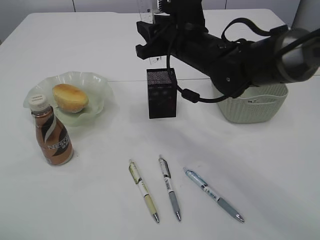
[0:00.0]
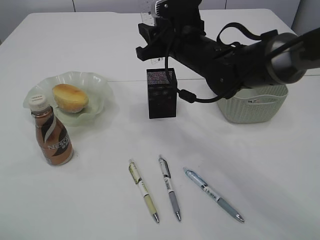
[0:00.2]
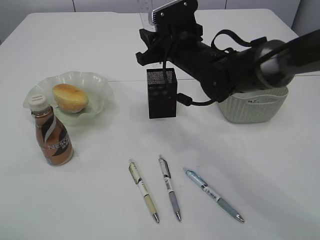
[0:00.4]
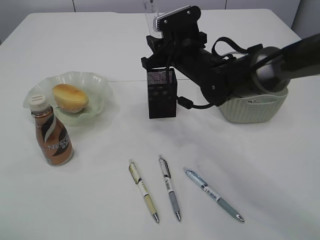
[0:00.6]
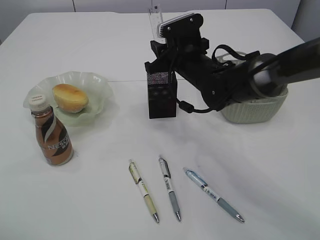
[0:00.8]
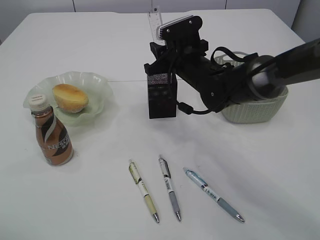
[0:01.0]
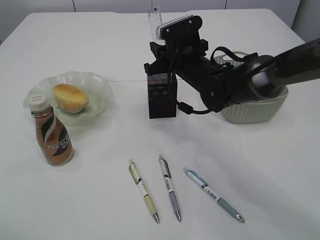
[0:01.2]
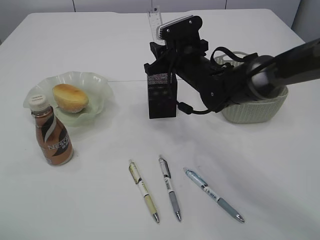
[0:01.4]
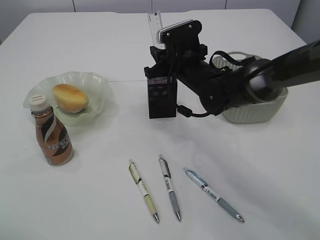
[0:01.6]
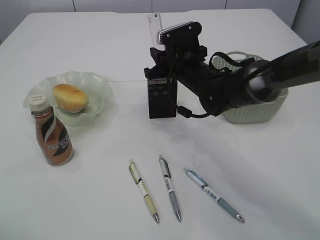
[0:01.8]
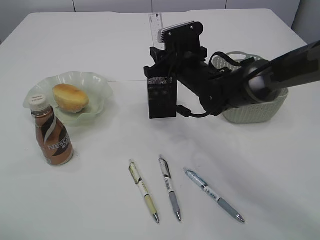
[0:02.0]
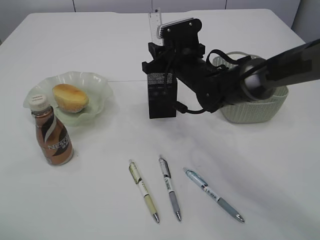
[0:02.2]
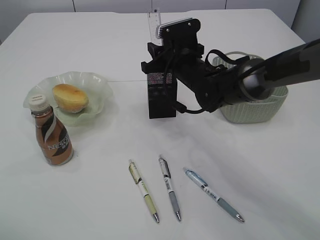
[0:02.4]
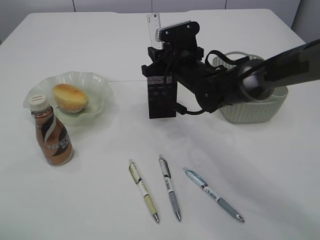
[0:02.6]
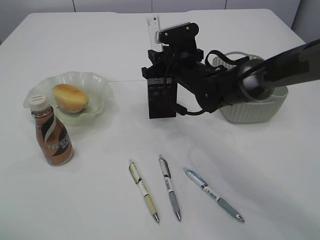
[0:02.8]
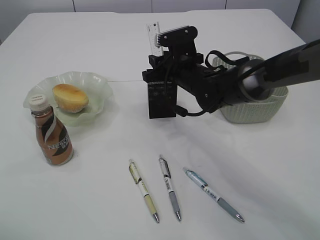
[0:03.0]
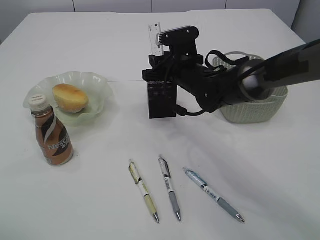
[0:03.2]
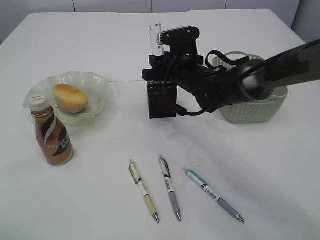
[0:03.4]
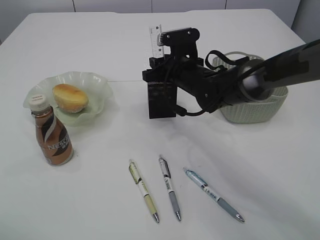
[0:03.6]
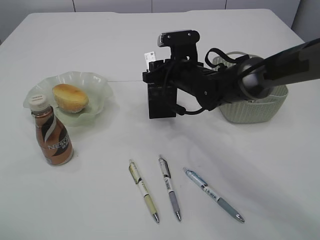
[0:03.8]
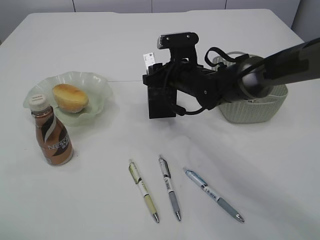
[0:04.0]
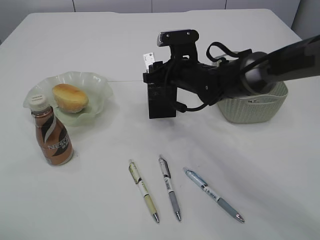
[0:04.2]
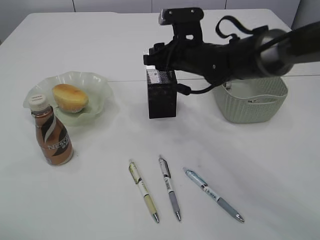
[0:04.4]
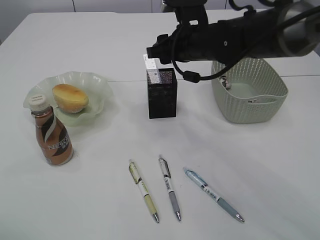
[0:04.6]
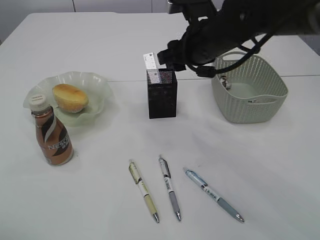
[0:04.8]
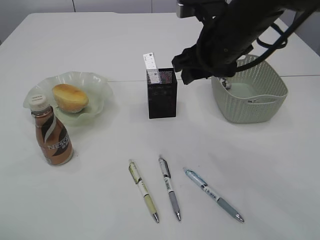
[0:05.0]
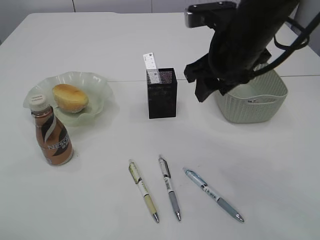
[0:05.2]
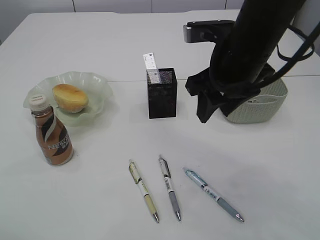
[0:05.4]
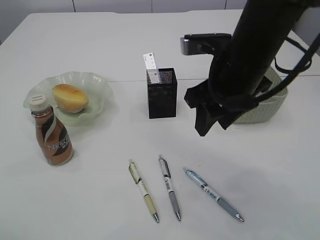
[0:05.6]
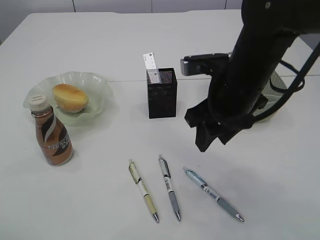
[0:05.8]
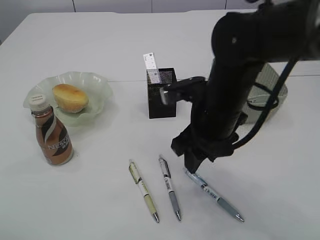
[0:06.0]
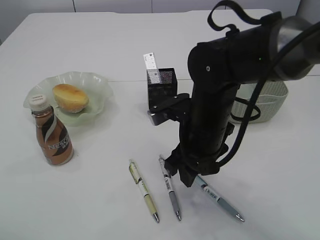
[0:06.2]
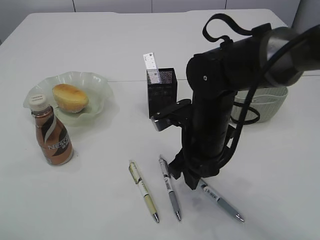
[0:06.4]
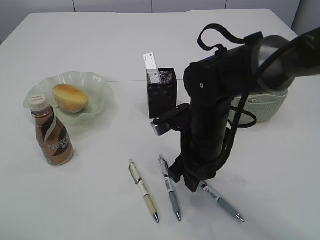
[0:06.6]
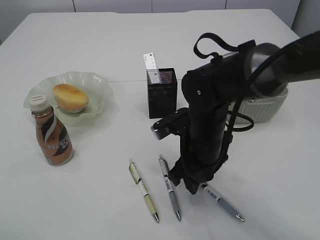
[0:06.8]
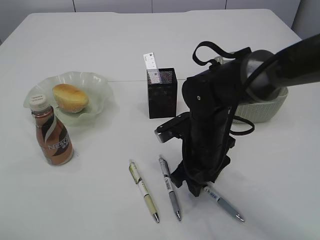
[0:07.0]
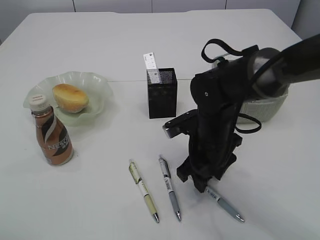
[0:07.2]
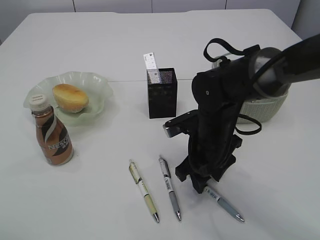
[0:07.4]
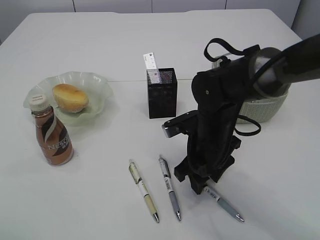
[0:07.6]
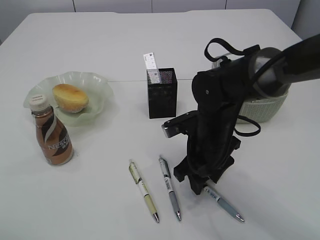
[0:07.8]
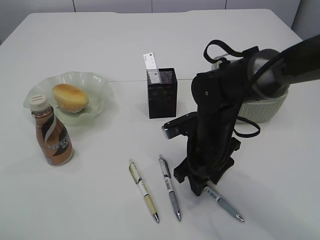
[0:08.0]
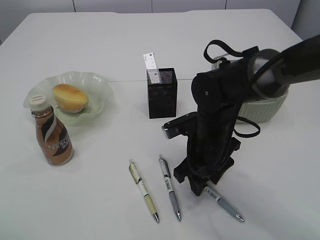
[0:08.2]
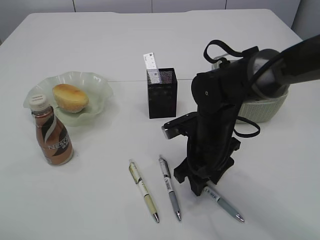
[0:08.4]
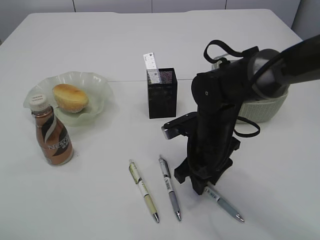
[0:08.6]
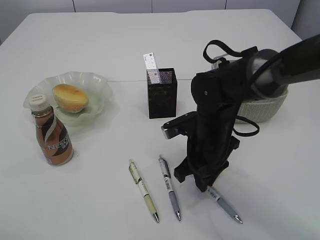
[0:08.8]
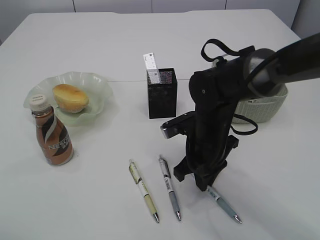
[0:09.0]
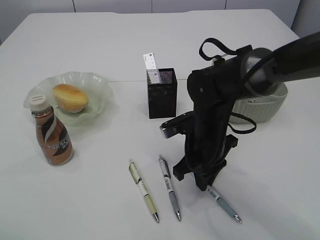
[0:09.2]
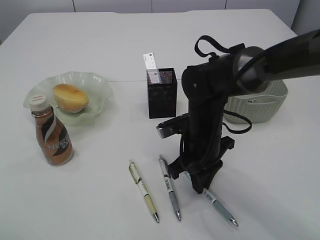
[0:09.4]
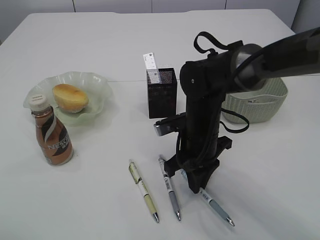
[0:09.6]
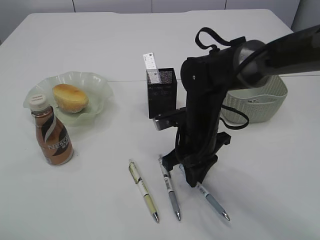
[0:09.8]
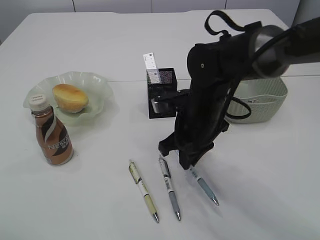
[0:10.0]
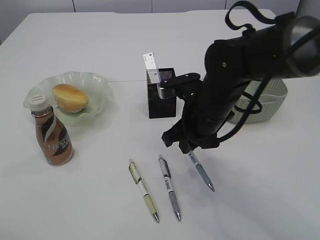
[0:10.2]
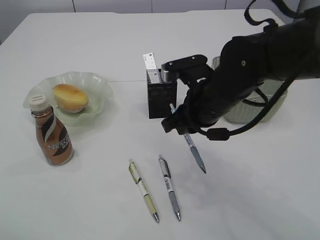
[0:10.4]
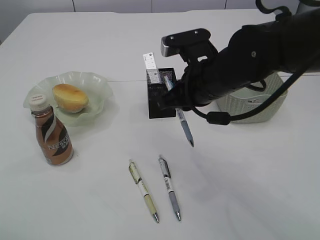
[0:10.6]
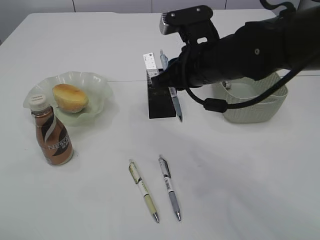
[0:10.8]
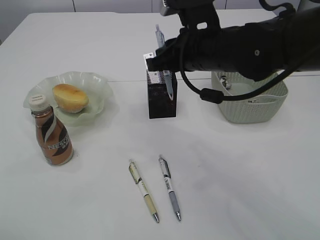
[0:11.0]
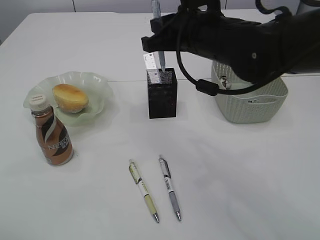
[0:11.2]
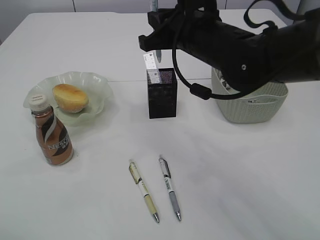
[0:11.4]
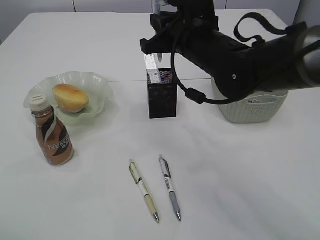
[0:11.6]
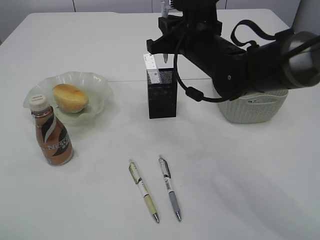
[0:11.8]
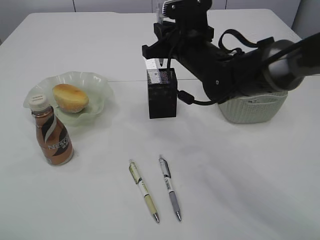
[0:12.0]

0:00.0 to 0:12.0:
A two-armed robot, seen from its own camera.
Step, 0:00.0 to 0:04.8: Place the ruler into the pen holder.
Step, 0:05.0 to 0:10.2: Pick up the pen with right arm.
0:00.0 to 0:01.6: The right gripper is displaced downward by some 5 cm.
0:01.6 to 0:03.0: The grippers stay close to where they were, moving slightly.
0:03.0 to 0:04.4: There are only small adjustments of the grippers.
0:04.4 to 0:06.0: The right gripper shifts roughly 15 cm backward.
0:06.0 to 0:07.6: The right gripper is displaced downward by roughly 10 cm.
0:07.6 to 0:09.0: The right gripper closes.
0:09.0 to 0:10.4: The right gripper is displaced upward by roughly 10 cm.
0:10.4 to 0:12.0: The right gripper travels forward by approximately 10 cm.

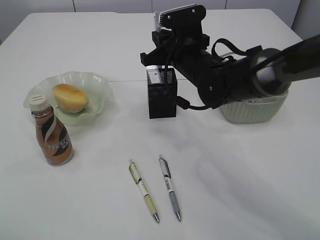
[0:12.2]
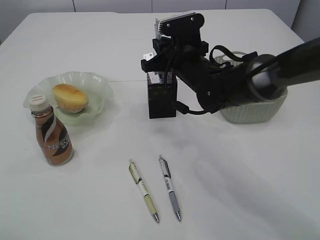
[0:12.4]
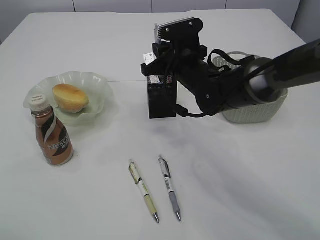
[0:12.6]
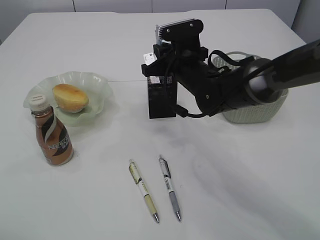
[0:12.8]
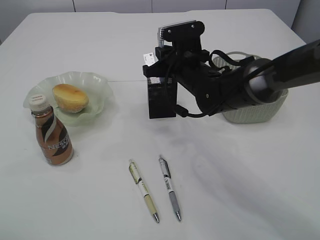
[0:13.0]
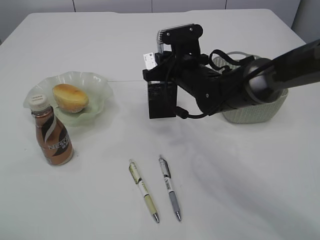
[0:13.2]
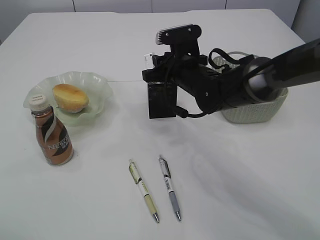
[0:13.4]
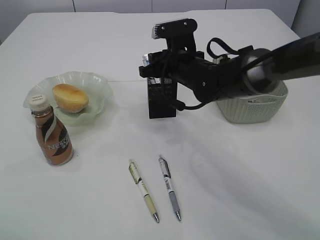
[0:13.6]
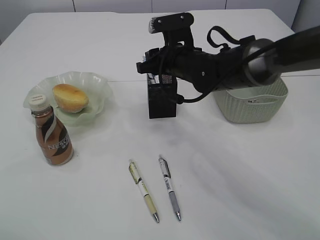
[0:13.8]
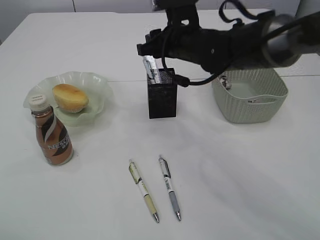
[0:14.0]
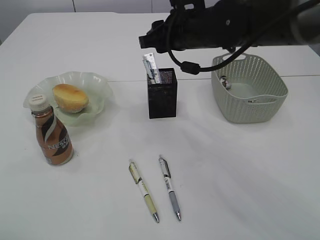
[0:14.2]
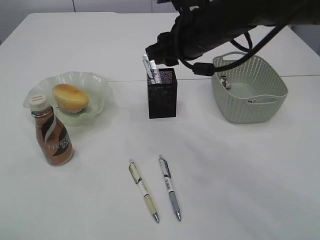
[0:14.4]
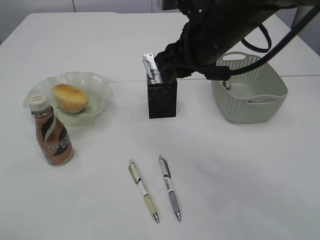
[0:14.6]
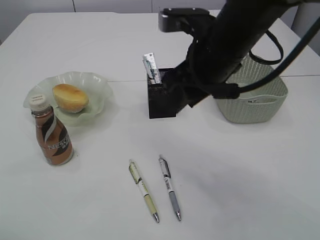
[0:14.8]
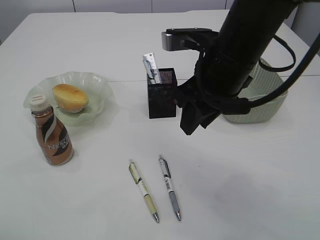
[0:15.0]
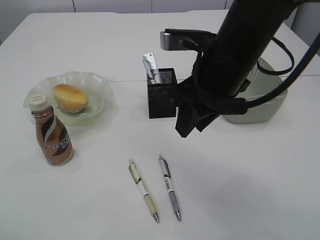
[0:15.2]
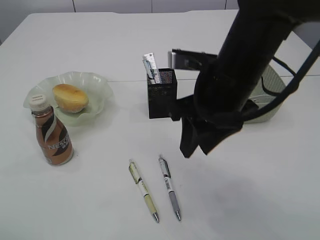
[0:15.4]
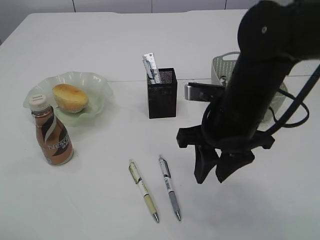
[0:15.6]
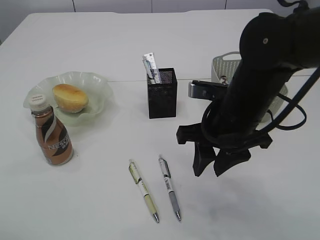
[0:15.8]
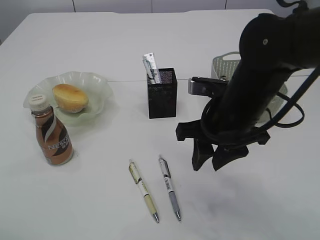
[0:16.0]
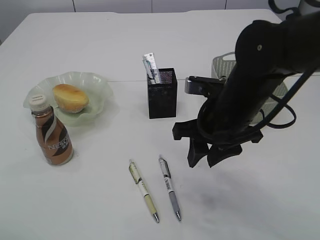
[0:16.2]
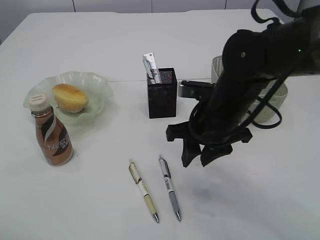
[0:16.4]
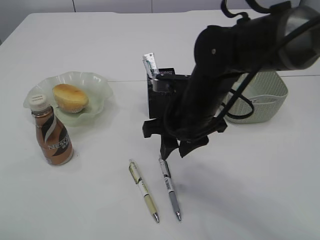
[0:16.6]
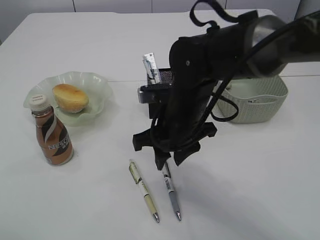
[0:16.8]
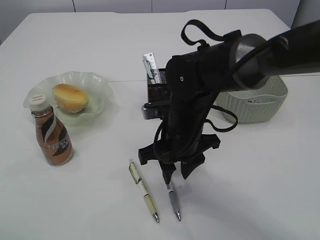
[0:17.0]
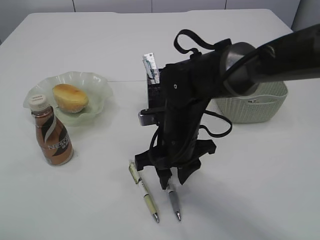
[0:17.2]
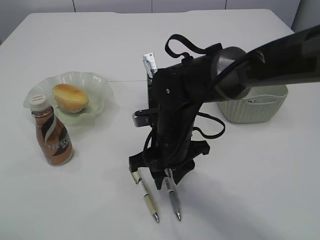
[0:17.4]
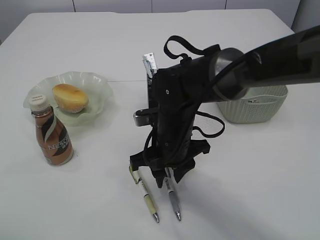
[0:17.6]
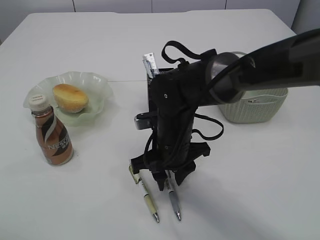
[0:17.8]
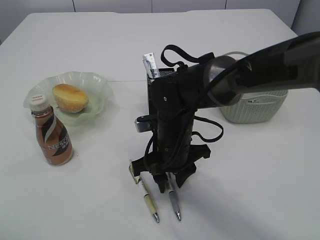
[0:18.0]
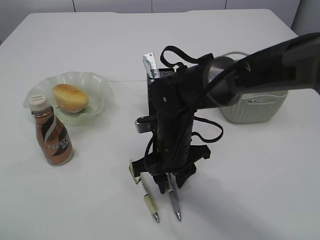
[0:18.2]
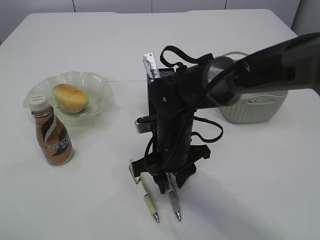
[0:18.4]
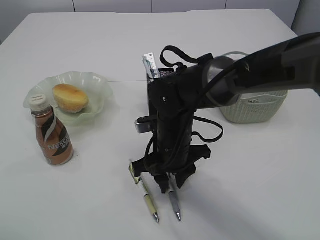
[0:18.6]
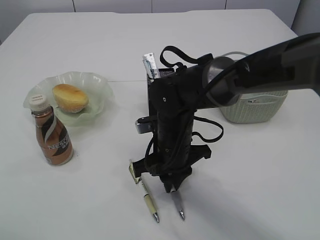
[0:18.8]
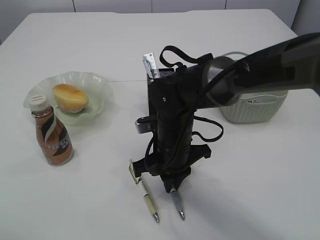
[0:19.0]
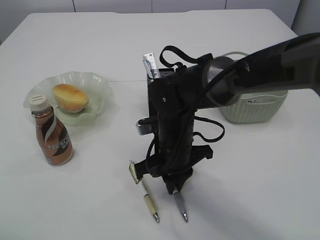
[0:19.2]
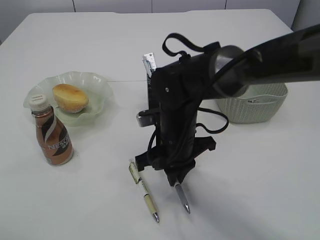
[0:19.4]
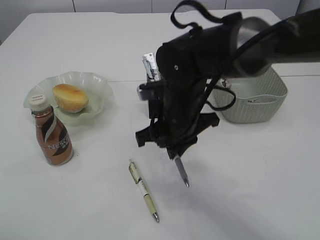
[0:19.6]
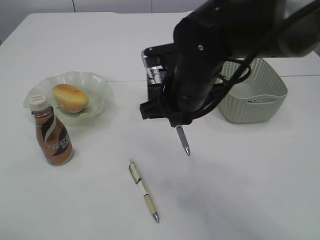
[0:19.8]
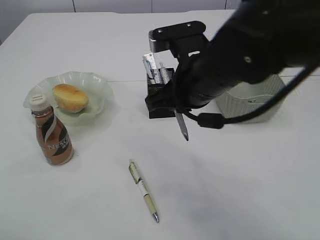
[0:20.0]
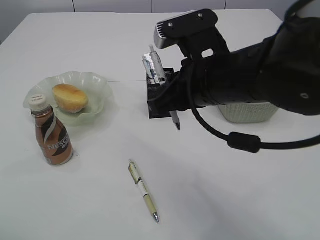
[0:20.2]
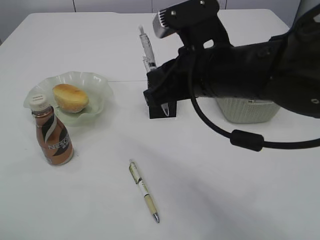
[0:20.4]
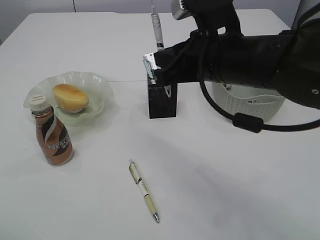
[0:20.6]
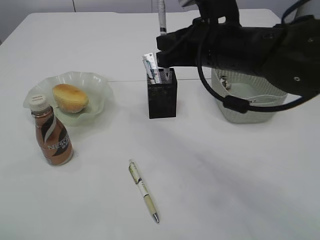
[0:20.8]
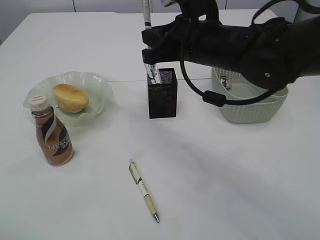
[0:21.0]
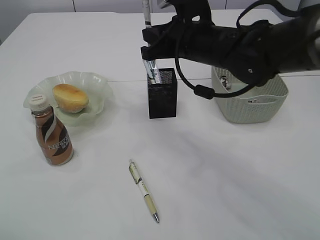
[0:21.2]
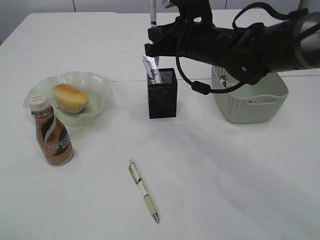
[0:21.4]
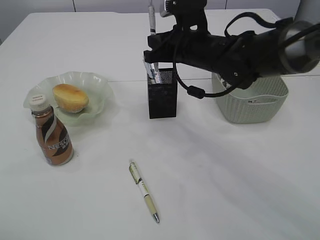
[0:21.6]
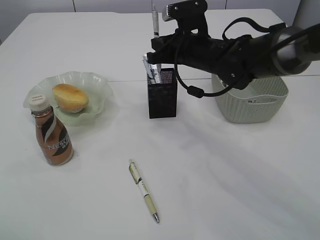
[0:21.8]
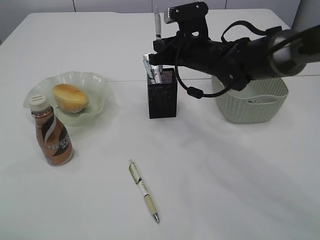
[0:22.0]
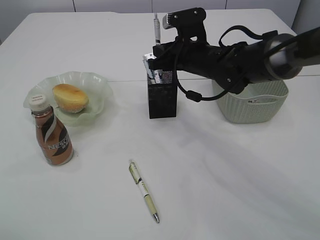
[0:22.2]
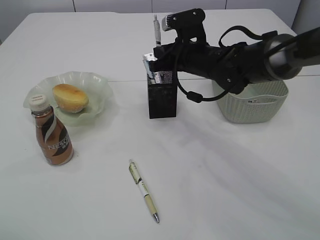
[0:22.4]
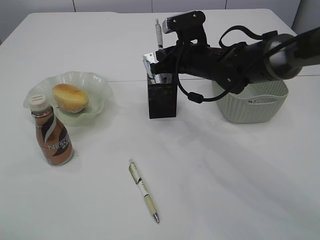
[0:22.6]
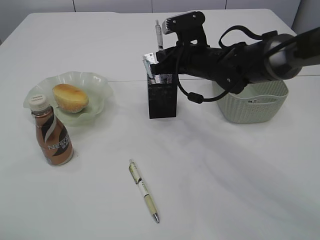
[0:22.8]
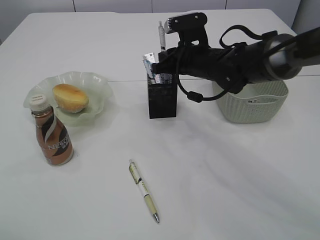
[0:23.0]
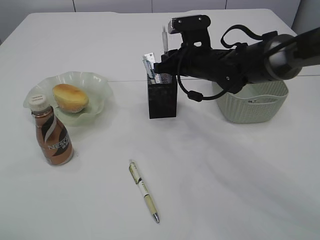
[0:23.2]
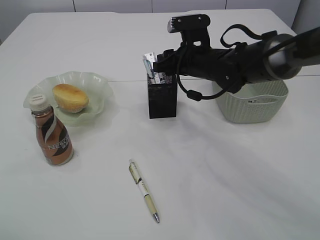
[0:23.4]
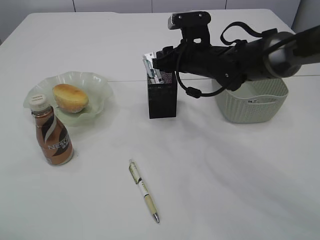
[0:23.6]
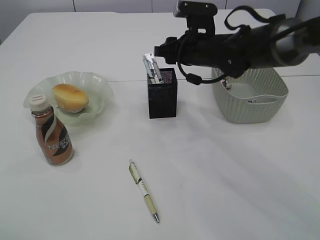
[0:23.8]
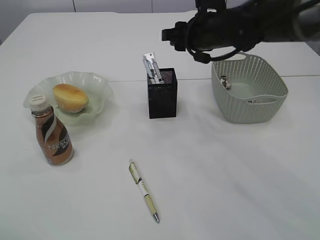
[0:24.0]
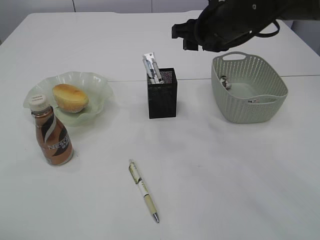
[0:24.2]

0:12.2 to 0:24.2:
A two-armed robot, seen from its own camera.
Step, 0:14.2 to 0:19.6: Pick up the pen with right arm.
Step, 0:19.8 to 0:24.0: Place the pen into the pen holder.
0:12.2 to 0:13.8: The right gripper opens its fingers.
0:13.8 to 0:15.2: The right gripper heads backward and upward, covering about 15 cm.
0:15.2 to 0:16.6: The right gripper is displaced downward by some 10 cm.
0:16.6 to 0:18.2: The right gripper moves downward, approximately 5 cm.
0:18.2 to 0:19.8: The right gripper travels upward by some 10 cm, and closes its fingers.
0:19.8 to 0:21.2: The right gripper is displaced forward by about 5 cm.
0:21.2 to 0:22.6: The right gripper moves downward and forward, approximately 10 cm.
0:22.6 to 0:24.2: The right gripper moves upward, about 10 cm, and opens up.
